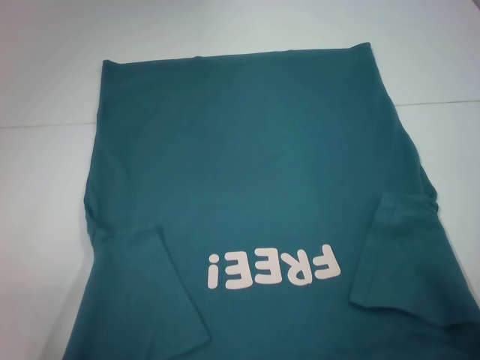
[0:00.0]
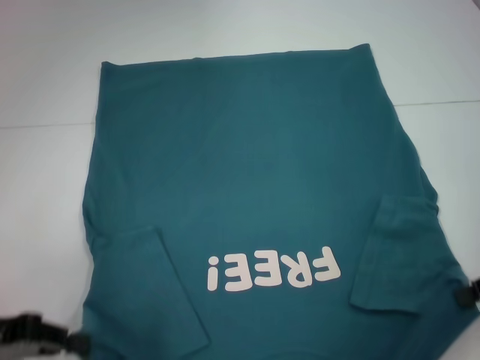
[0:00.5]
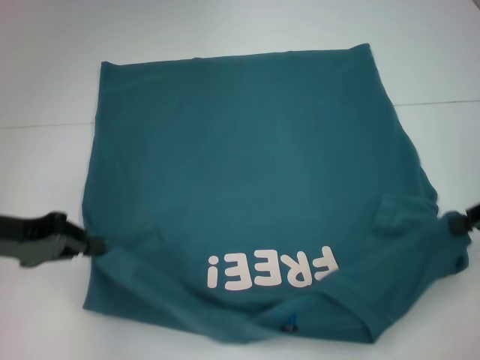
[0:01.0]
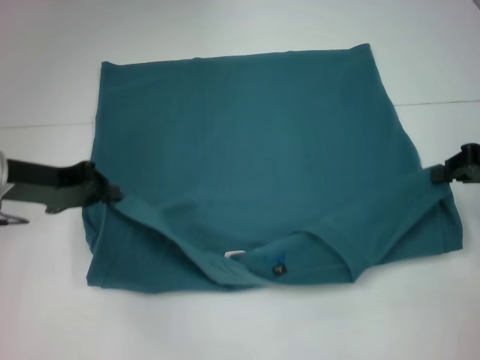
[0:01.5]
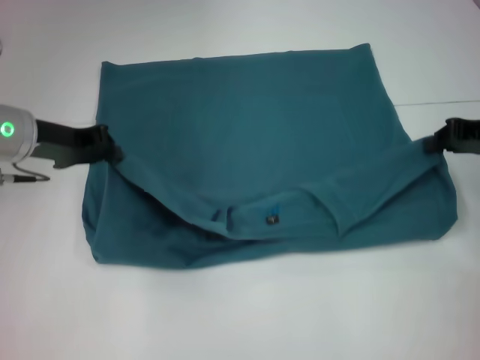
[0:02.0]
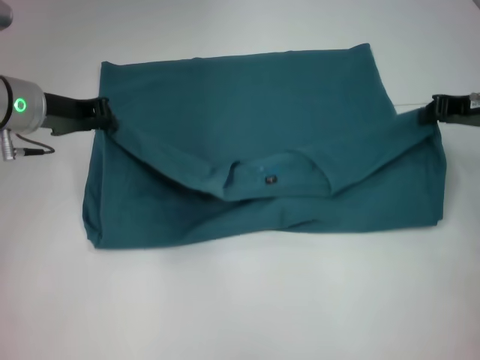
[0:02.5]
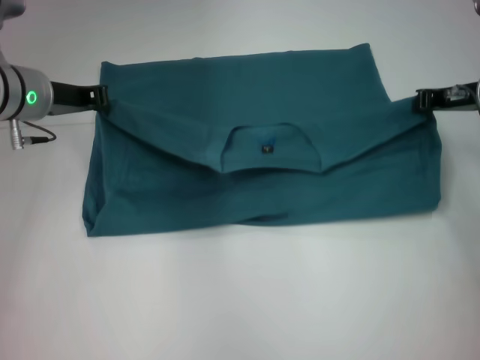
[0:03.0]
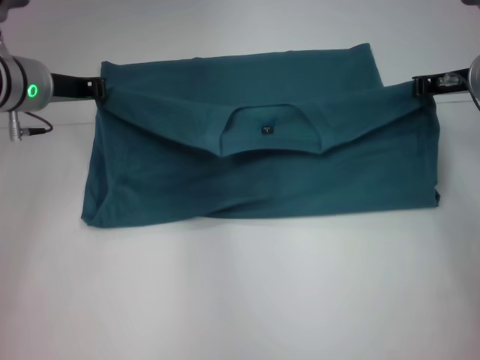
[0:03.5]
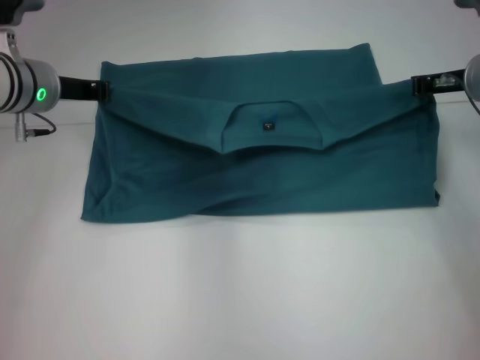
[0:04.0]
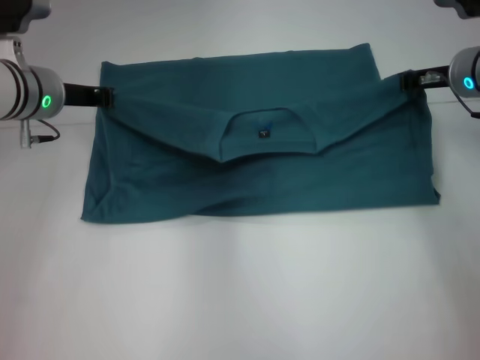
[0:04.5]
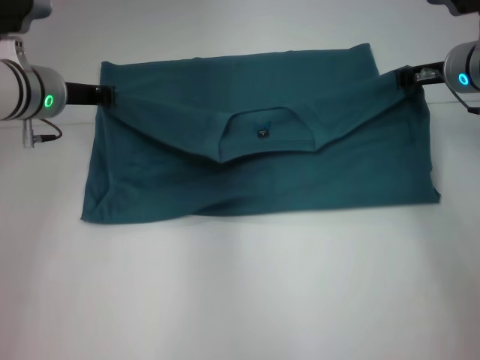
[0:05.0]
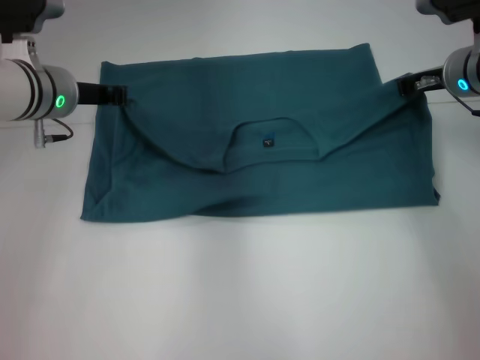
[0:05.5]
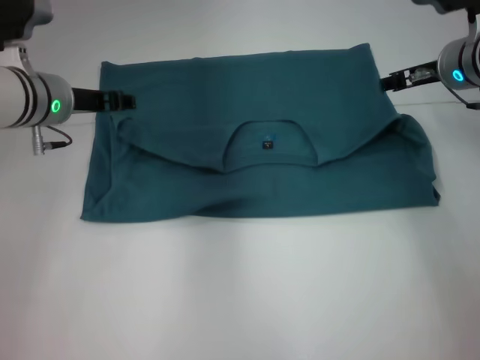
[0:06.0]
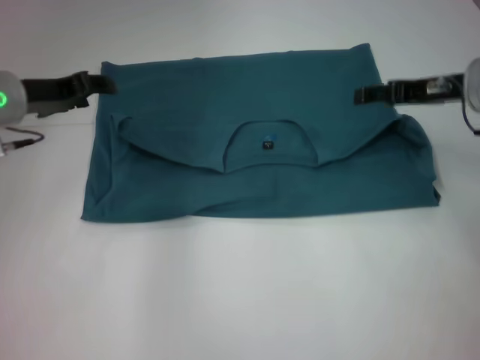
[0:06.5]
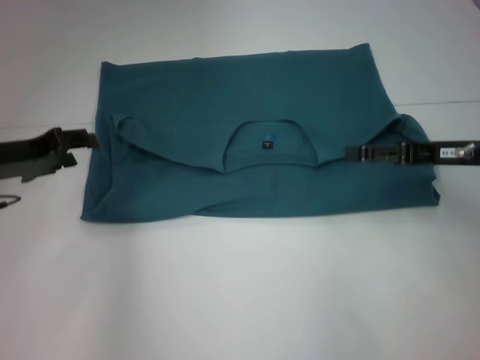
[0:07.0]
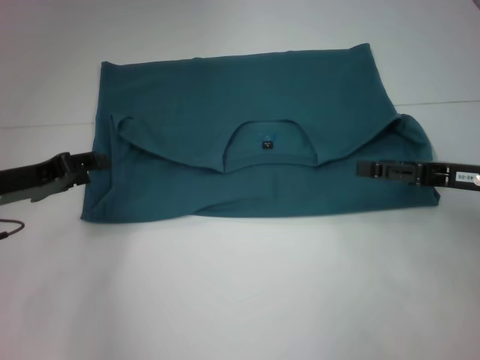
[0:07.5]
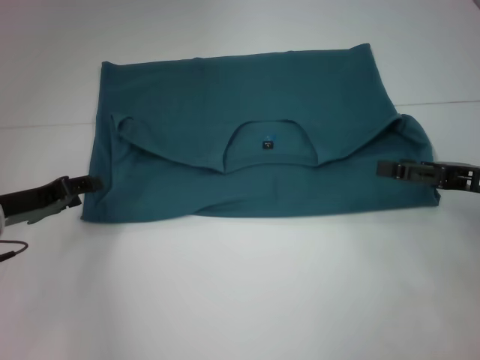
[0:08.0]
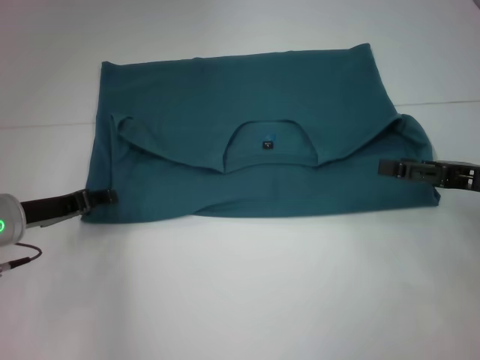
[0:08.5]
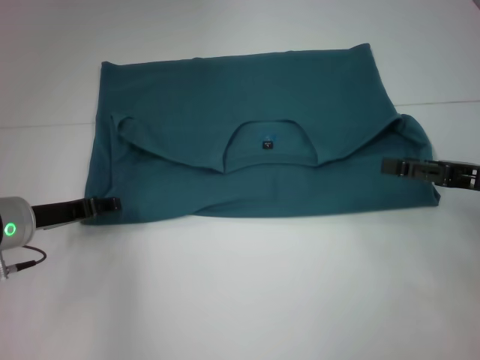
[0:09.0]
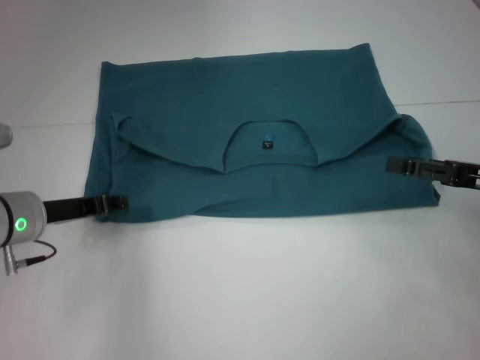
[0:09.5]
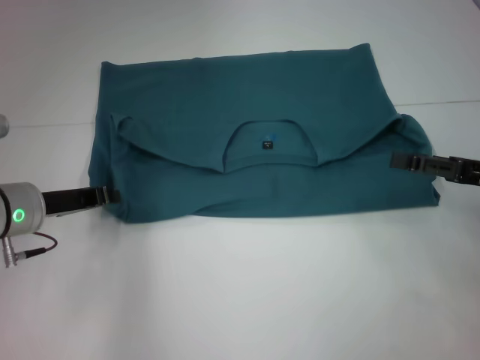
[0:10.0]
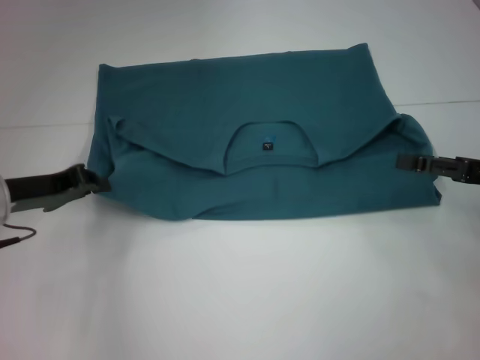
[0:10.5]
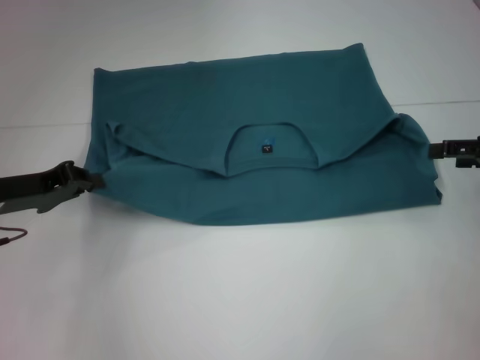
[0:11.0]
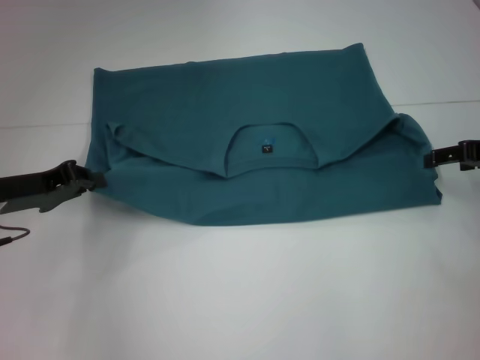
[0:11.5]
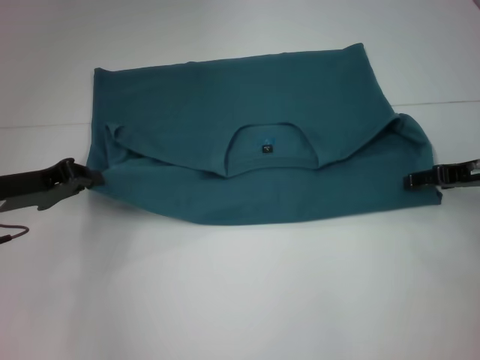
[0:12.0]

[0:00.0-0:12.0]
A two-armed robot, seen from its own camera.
Step, 0:00.0 to 0:05.5: Fold the clothes to the left.
0:00.0 to 0:02.0: The right gripper moves forward, about 10 cm. The left gripper goes approximately 20 cm forward and to the right.
0:02.0 to 0:04.0: The left gripper moves roughly 5 cm, while the right gripper heads forward and to the left, covering some 10 cm.
0:04.0 to 0:06.0: The right gripper opens. The left gripper opens up.
0:06.0 to 0:08.0: The left gripper heads backward, to the left and downward, covering about 15 cm, while the right gripper shifts roughly 15 cm backward and to the right, and opens its fingers.
0:08.0 to 0:10.0: The left gripper closes.
0:10.0 to 0:12.0: The right gripper goes about 5 cm forward.

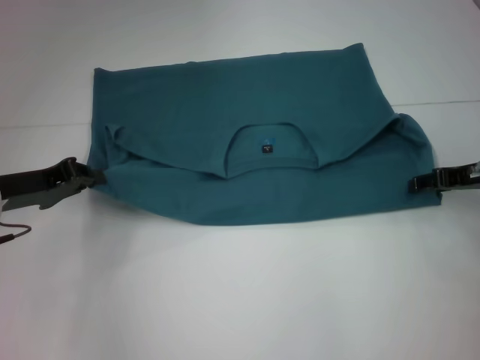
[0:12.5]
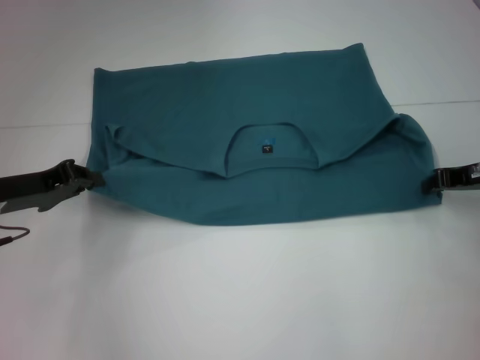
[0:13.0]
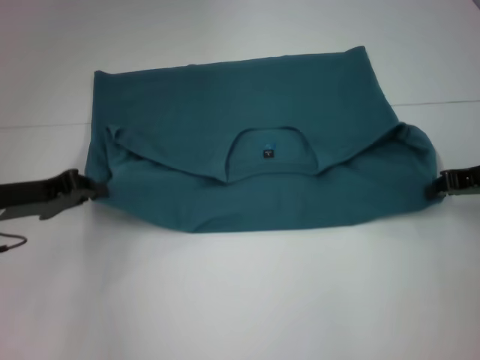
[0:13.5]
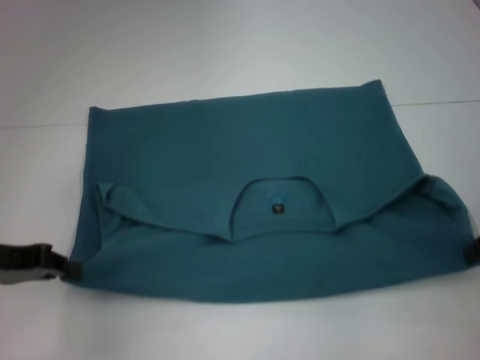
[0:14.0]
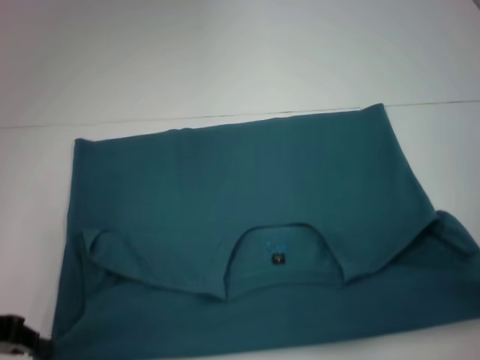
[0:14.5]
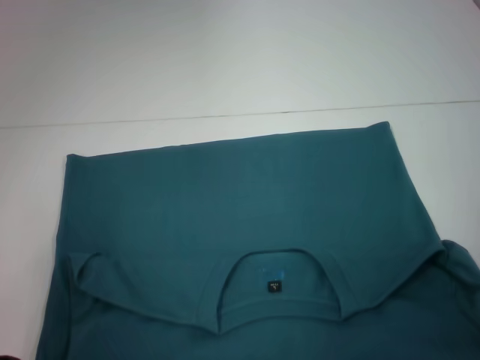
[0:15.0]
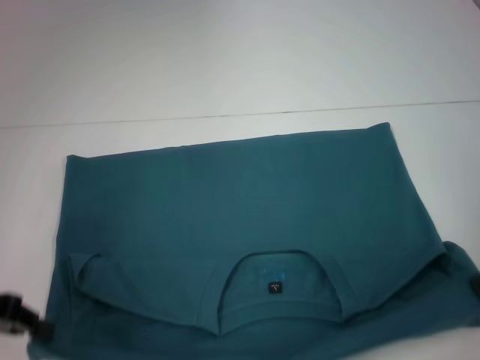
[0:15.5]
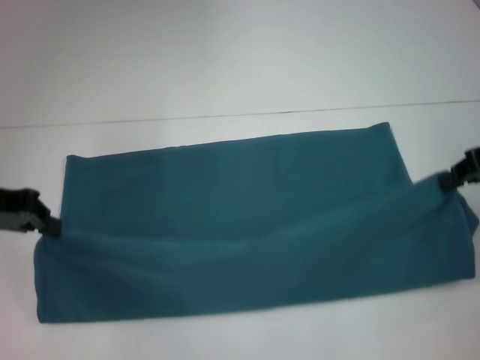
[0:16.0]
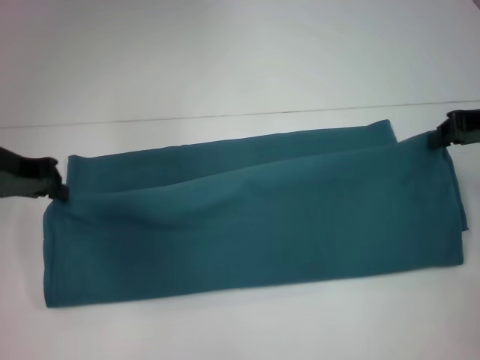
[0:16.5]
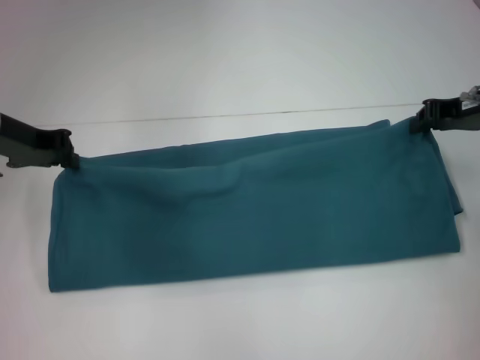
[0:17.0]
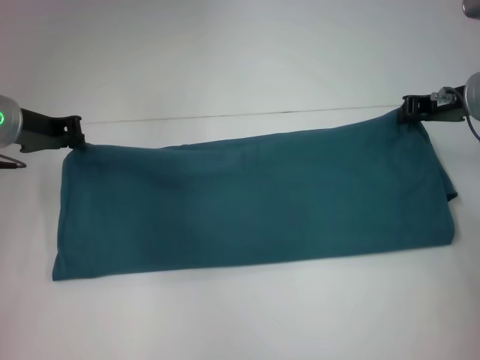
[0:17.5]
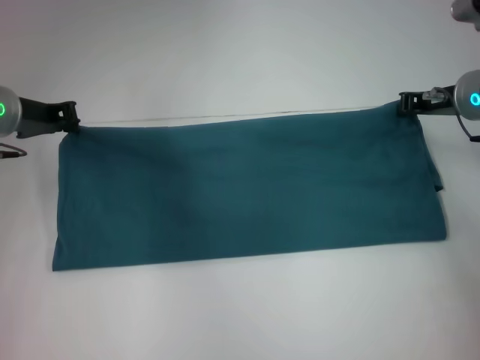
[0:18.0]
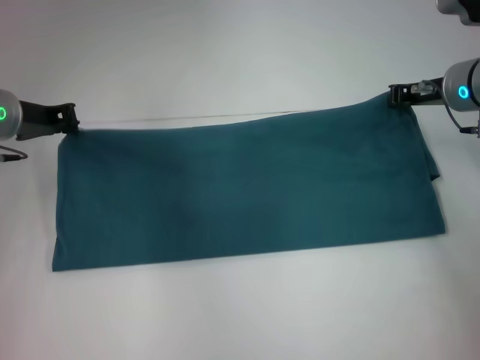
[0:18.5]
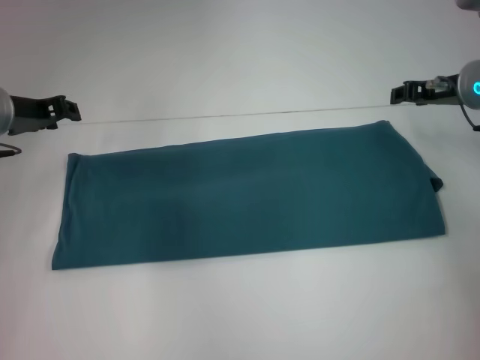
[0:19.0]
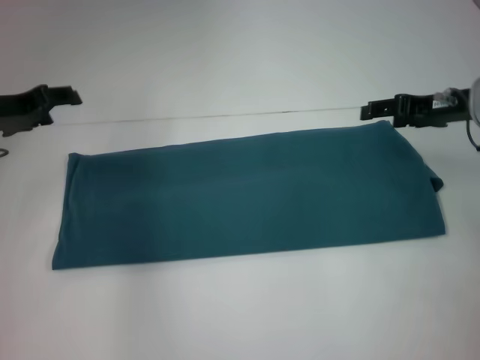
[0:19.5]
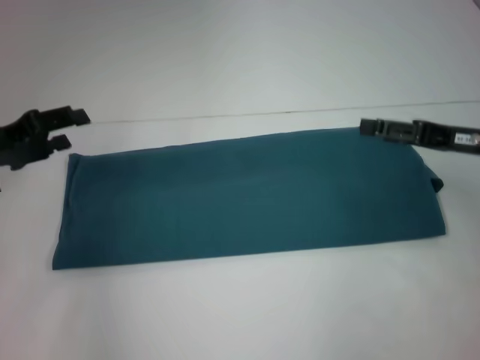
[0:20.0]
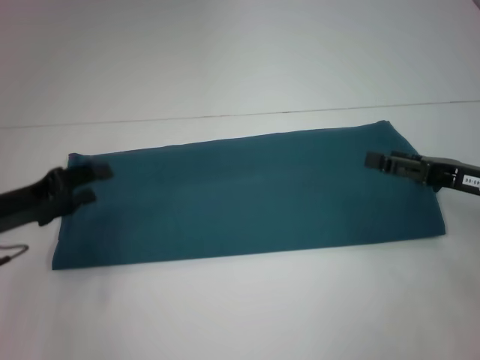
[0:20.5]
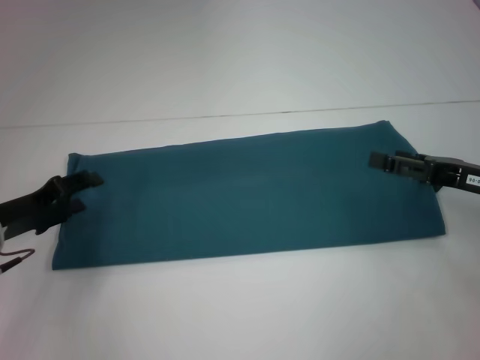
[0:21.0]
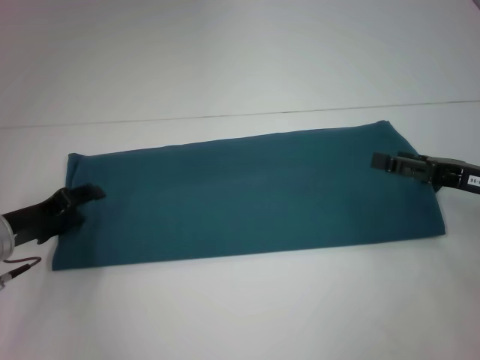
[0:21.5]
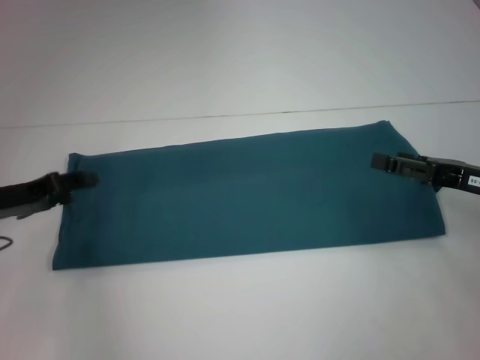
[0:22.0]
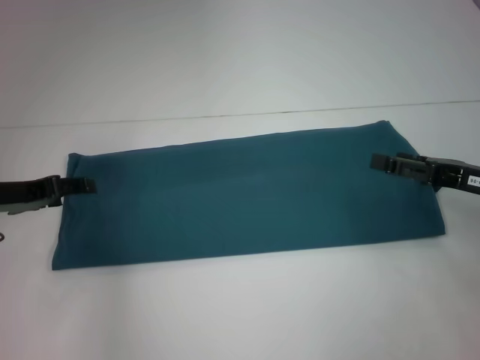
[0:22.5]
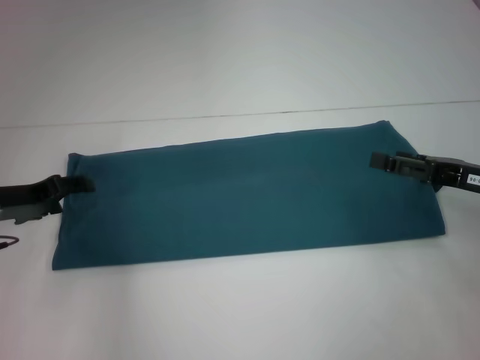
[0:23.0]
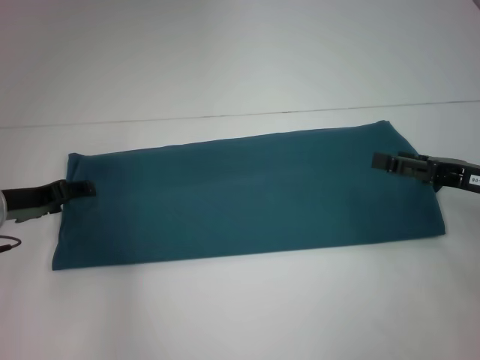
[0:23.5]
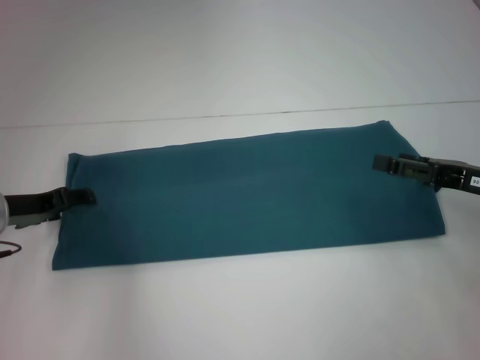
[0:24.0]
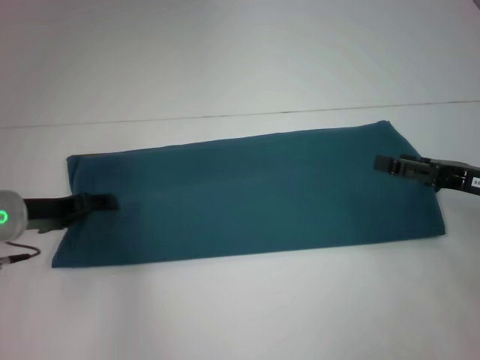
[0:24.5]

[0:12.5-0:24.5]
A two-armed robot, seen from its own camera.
Step, 0:12.5 to 0:15.0: Pull the clothes with your left hand.
Step, 0:12.5 to 0:15.0: Pull the clothes with your right hand.
Step, 0:15.5 to 0:18.5: Fold the clothes to the left.
0:12.5 to 0:14.5: The two grippers go some 10 cm backward. The right gripper closes up.
0:14.5 to 0:16.5: The left gripper heads forward and upward, covering about 15 cm; the right gripper goes approximately 10 cm forward.
0:16.5 to 0:18.5: The left gripper shifts by some 5 cm. Meanwhile the right gripper moves to the left and forward, about 10 cm.
0:18.5 to 0:20.5: The left gripper travels backward and downward by approximately 15 cm, and opens up. The right gripper is displaced backward by roughly 15 cm, and opens.
0:22.5 to 0:24.5: There are only small adjustments of the grippers.

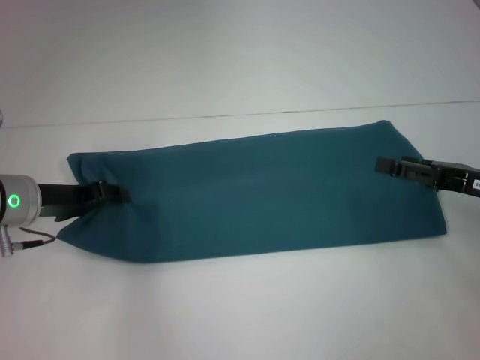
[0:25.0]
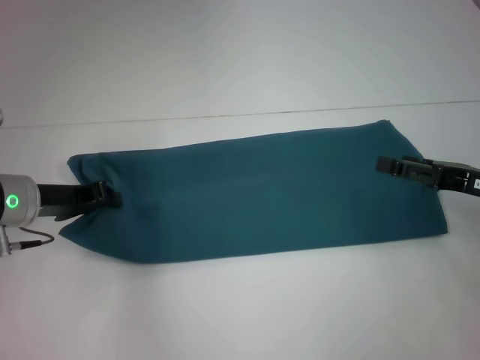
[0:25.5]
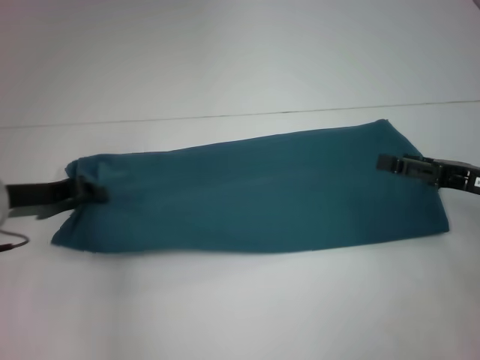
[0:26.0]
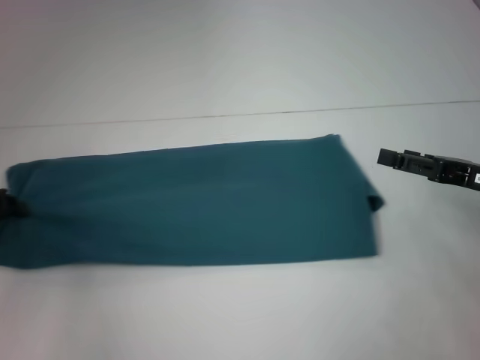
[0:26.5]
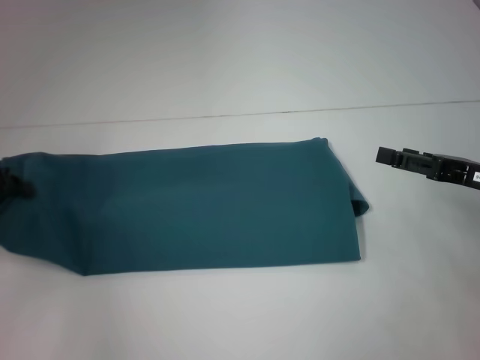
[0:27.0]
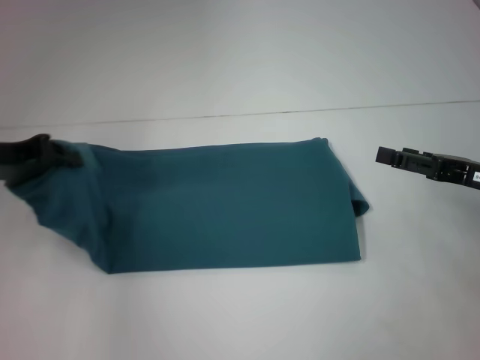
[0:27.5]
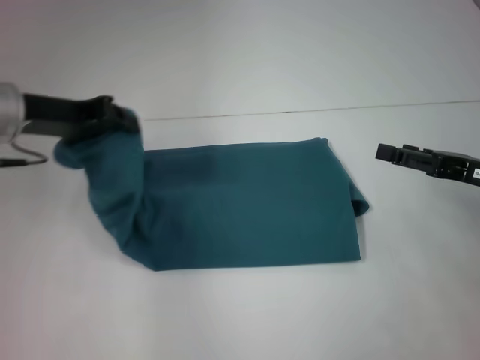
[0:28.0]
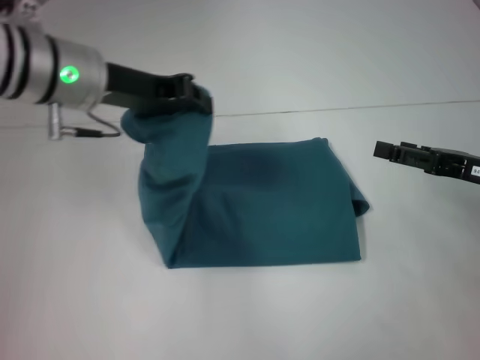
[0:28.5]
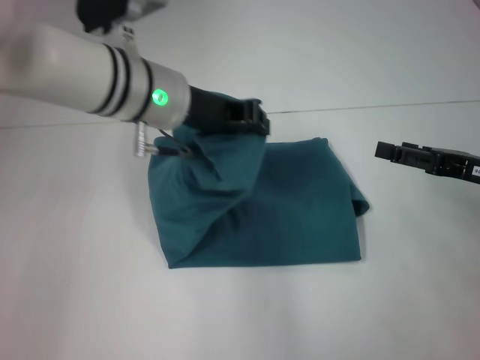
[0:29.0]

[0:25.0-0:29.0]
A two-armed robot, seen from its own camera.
0:25.0 to 0:27.0: The left gripper moves to the left, approximately 10 cm, and closes its fingers.
0:27.0 to 0:29.0: The left gripper is displaced to the right by about 25 cm.
